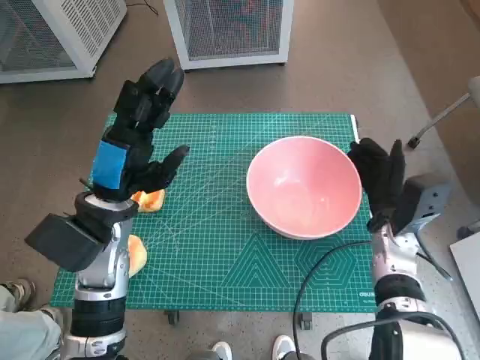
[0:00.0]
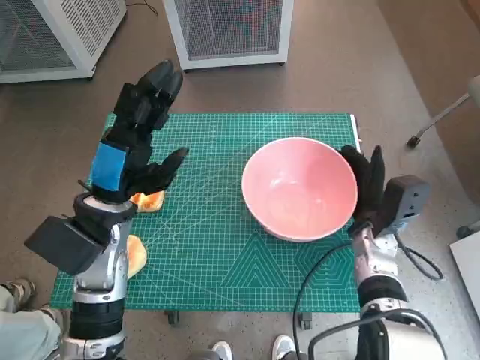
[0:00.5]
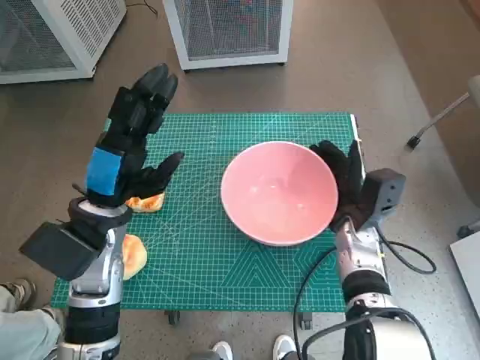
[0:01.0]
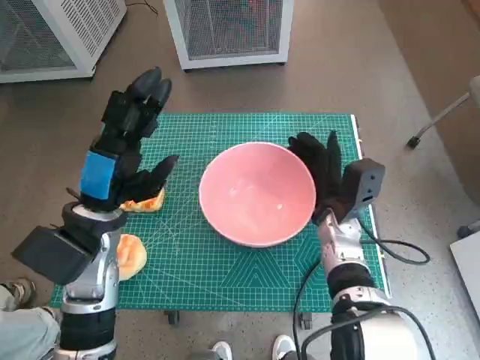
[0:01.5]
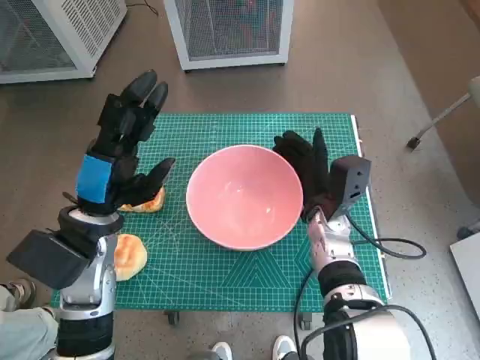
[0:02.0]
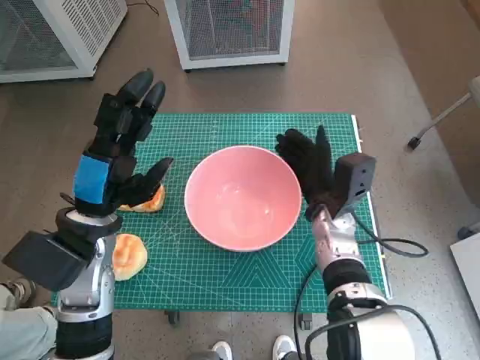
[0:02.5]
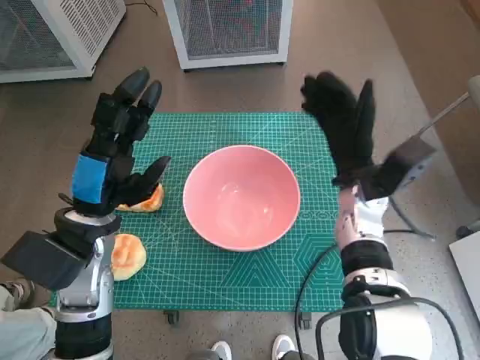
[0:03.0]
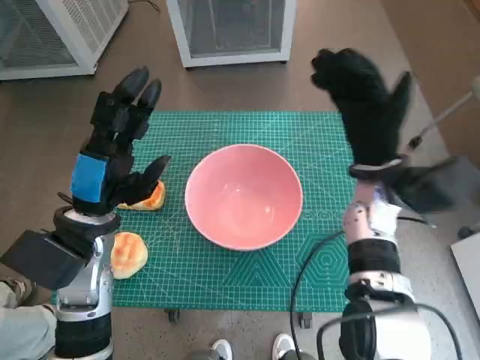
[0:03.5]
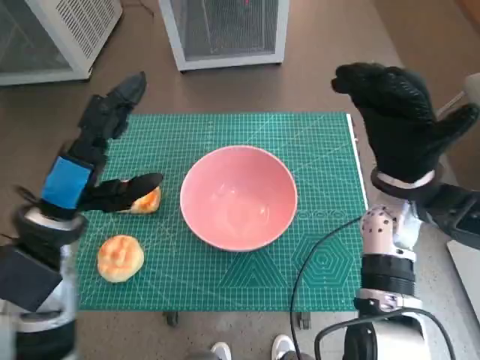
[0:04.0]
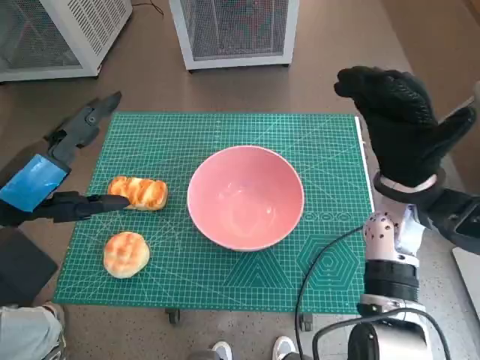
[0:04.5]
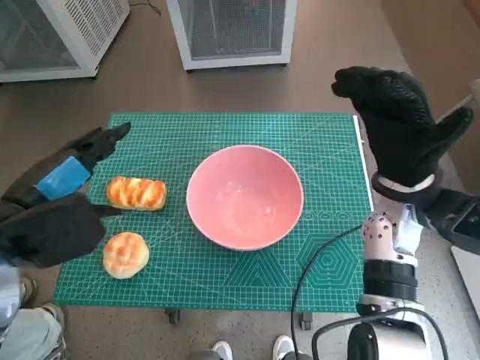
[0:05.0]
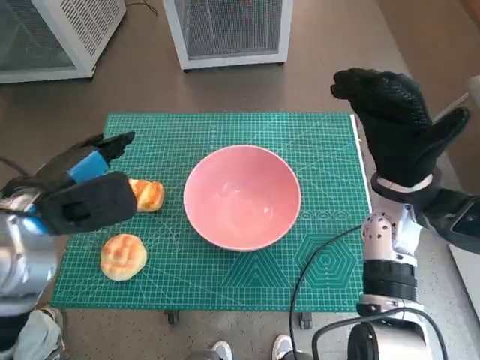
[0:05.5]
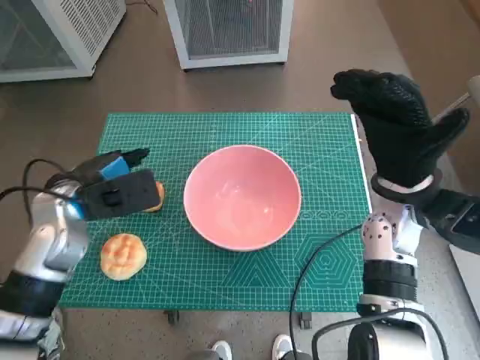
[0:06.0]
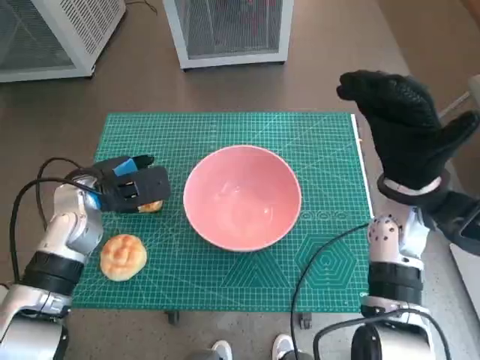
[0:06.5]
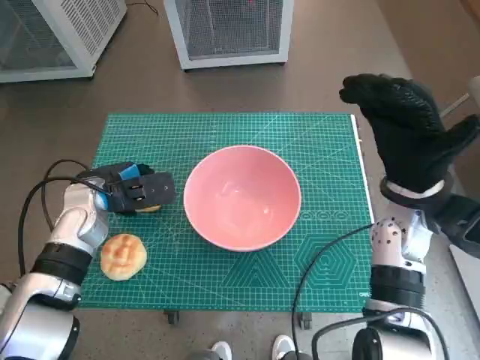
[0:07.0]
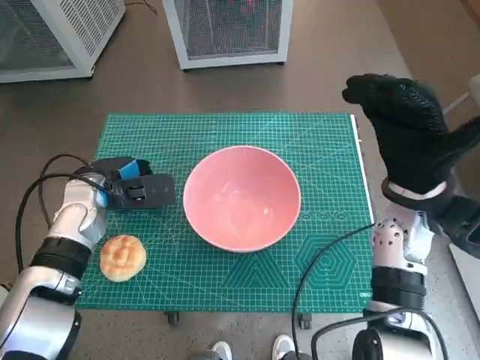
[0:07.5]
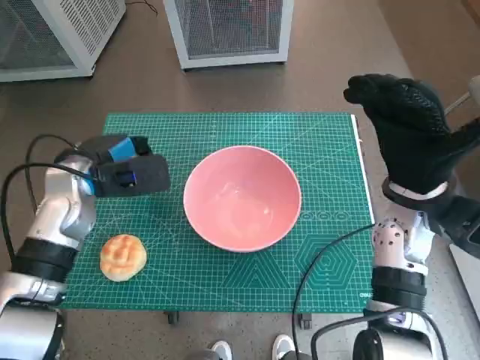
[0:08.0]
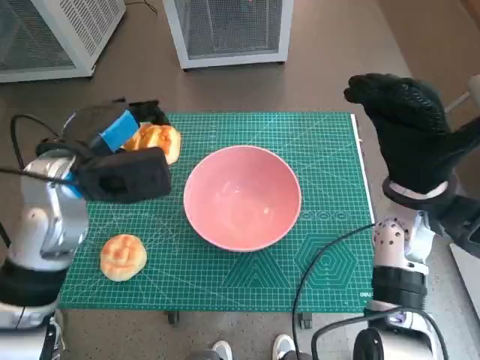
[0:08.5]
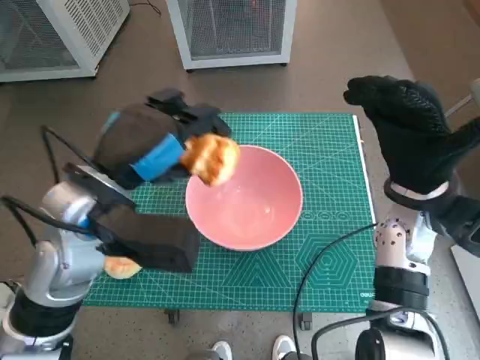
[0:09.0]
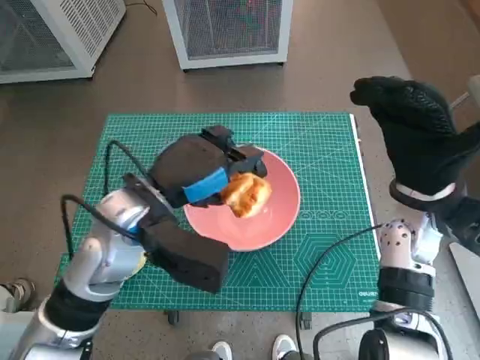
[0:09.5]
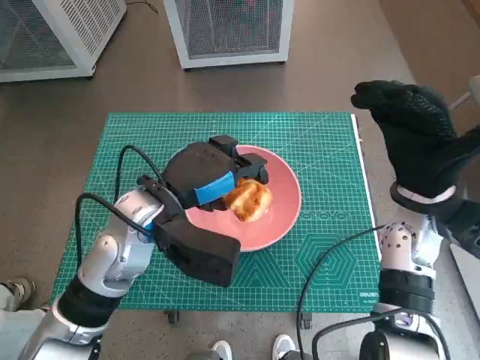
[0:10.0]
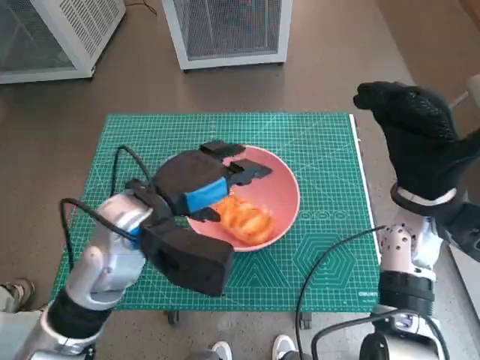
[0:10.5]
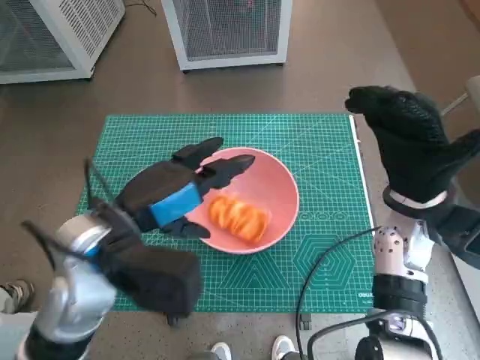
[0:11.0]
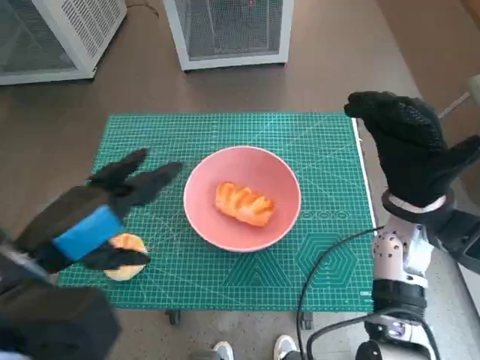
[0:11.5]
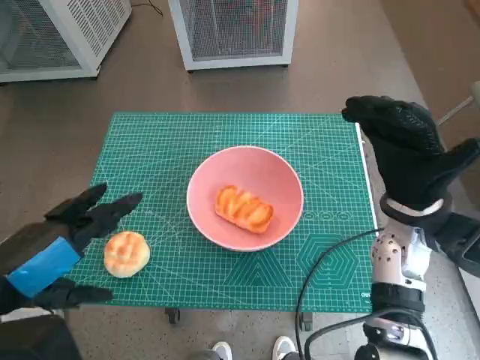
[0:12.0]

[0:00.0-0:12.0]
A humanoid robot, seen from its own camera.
Task of the whole recording: Push the bowl into the center of the table and put the bread into the bowl.
Step, 0:00.0 to 0:02.5: Move the pink bowl to the center of table with right hand.
Step, 0:03.0 to 0:07.0: Grasp the long bread with left hand.
Step, 0:07.5 to 0:10.0: Place the long bread in pink bowl with left hand.
0:00.0 to 0:02.0: The right hand goes about 10 cm to the left.
0:02.0 to 0:04.0: The right hand shifts approximately 15 cm upward and to the right.
0:04.0 to 0:06.0: The left hand heads forward, covering some 5 cm.
0:06.0 to 0:08.0: The hands make only small movements.
0:08.0 to 0:10.0: The left hand is displaced to the right and backward by approximately 15 cm.
0:10.0 to 0:12.0: The left hand moves backward, to the left and upward, about 20 cm.

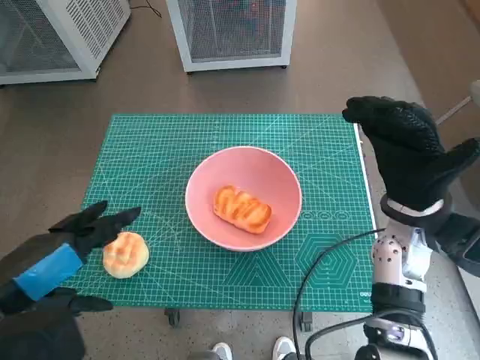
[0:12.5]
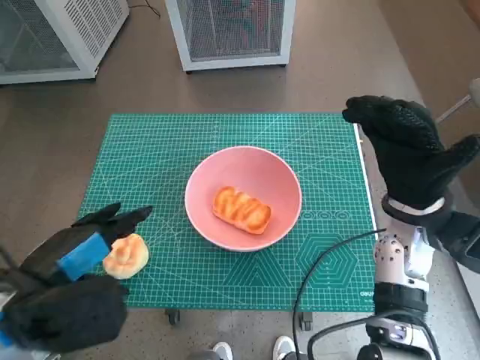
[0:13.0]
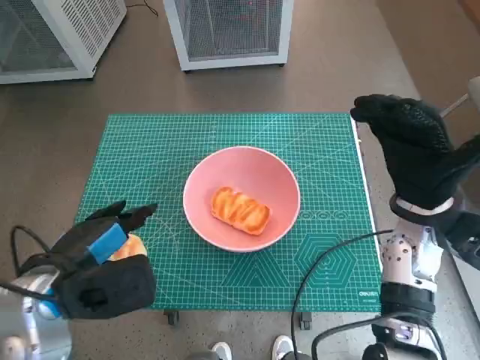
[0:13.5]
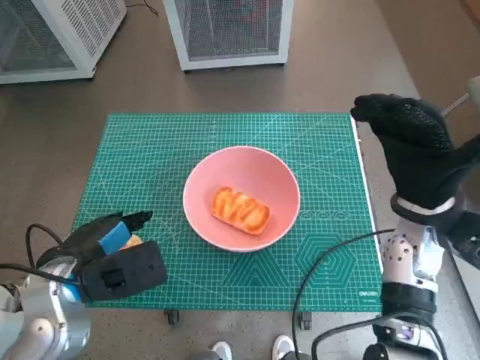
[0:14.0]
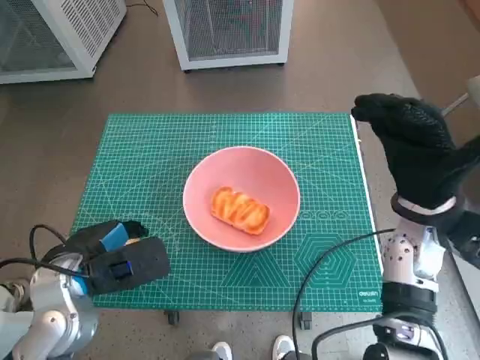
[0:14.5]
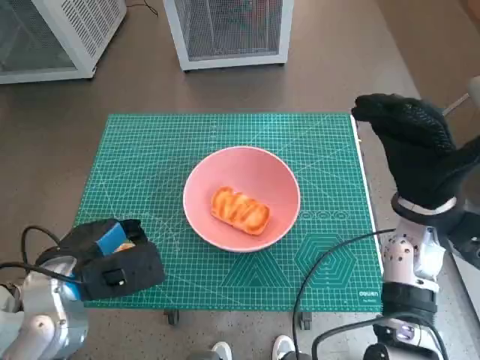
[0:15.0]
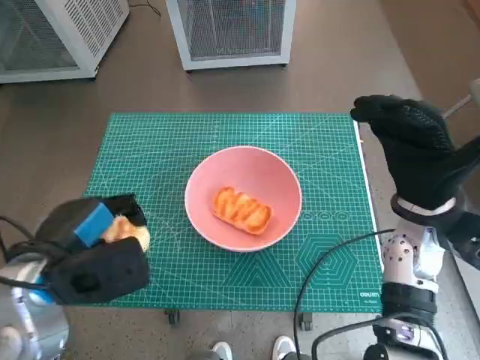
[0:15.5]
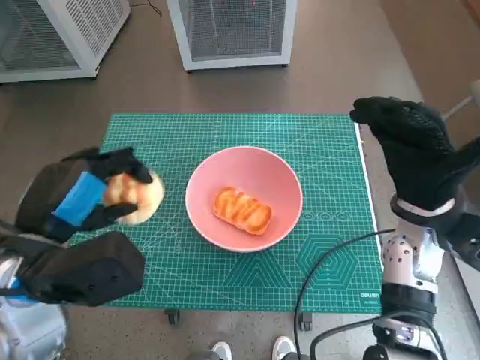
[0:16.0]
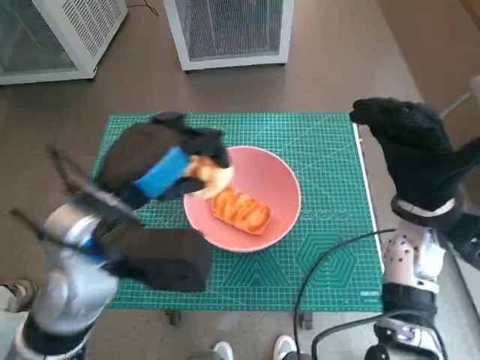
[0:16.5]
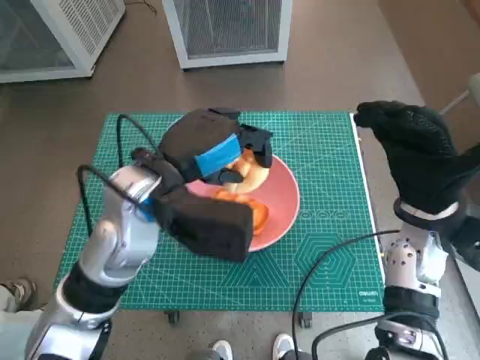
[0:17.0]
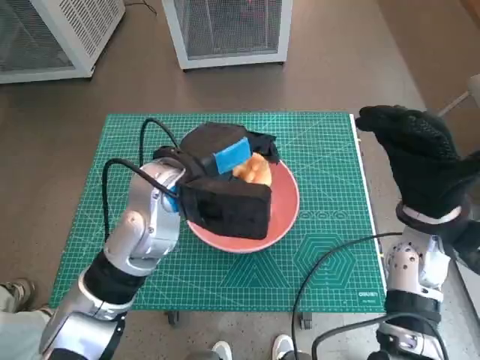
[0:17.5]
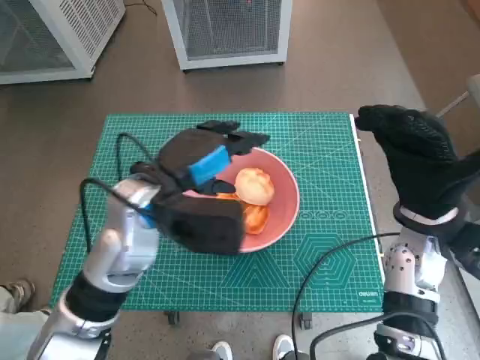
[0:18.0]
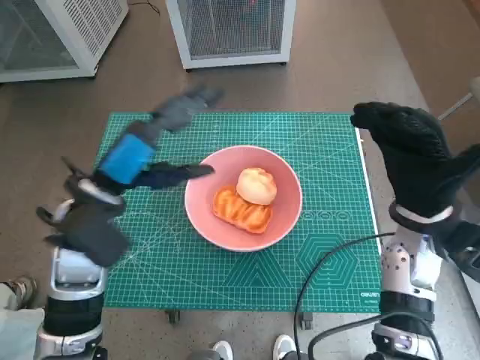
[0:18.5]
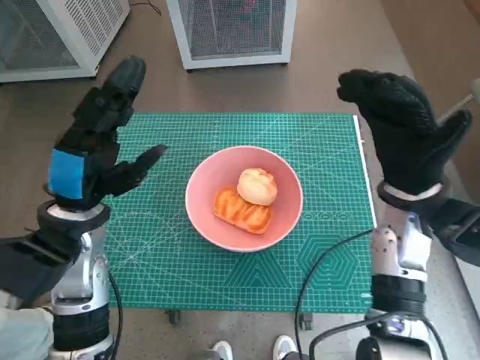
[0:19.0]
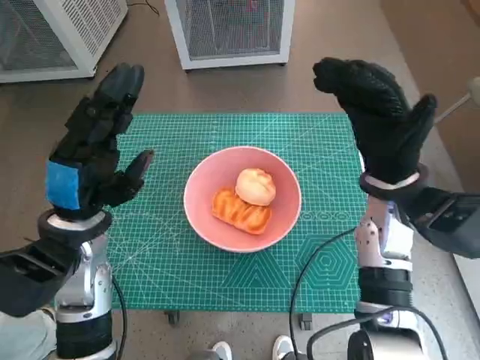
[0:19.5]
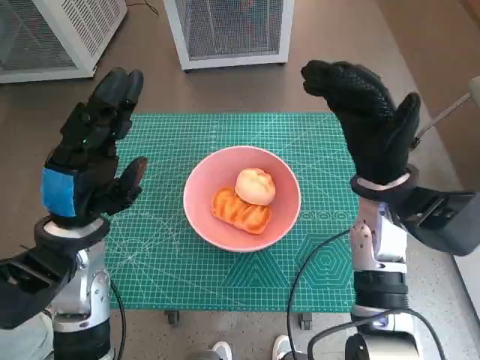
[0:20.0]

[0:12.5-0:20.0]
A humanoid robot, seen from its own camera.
Task of the whole recording: Push the bowl into the center of the table and put the bread into the bowl.
Step, 0:12.5 to 0:14.5: Grasp the round bread with left hand.
Step, 0:15.0 to 0:17.5: Place the round bread in pink bowl with left hand.
0:12.5 to 0:14.5: The left hand moves downward and forward, roughly 10 cm.
0:14.5 to 0:16.5: The left hand moves upward and to the right, some 10 cm.
0:16.5 to 0:18.0: The left hand travels forward by roughly 5 cm.
0:18.0 to 0:20.0: The right hand is displaced to the left by some 5 cm. Meanwhile the left hand shifts approximately 10 cm to the left.
